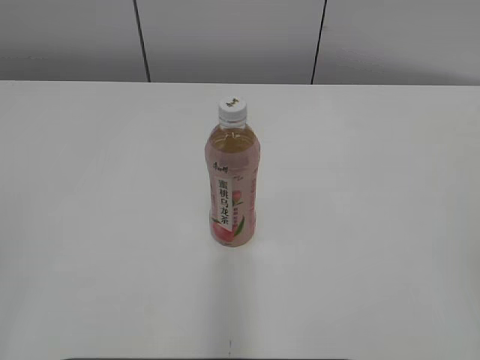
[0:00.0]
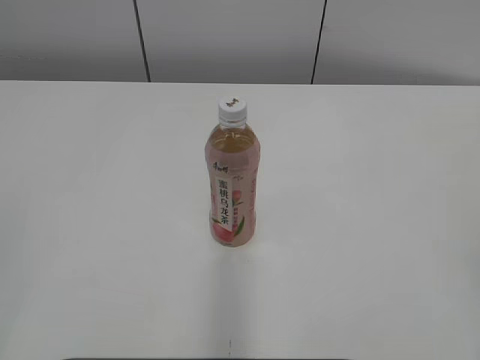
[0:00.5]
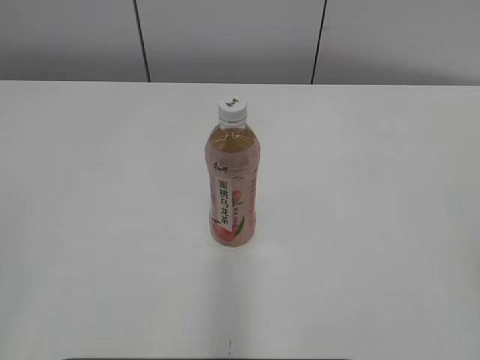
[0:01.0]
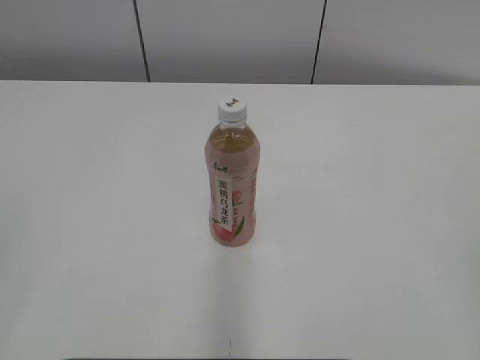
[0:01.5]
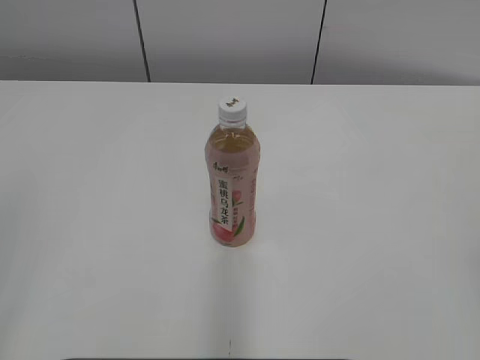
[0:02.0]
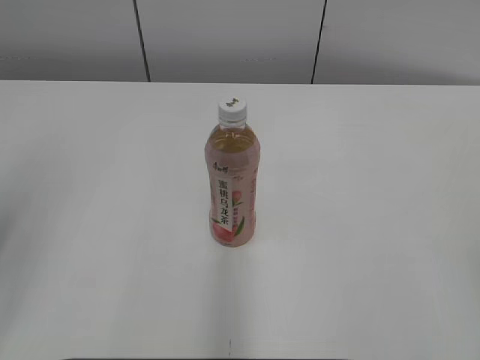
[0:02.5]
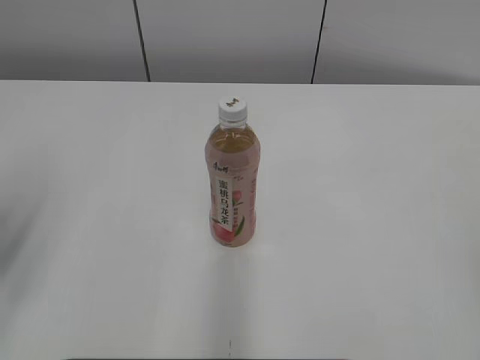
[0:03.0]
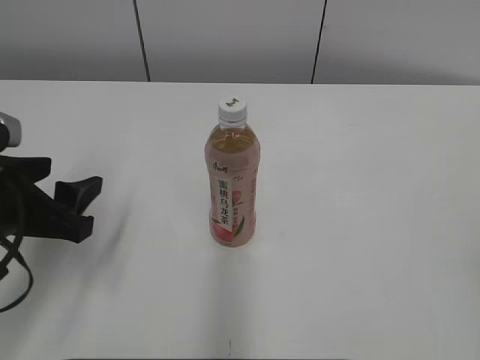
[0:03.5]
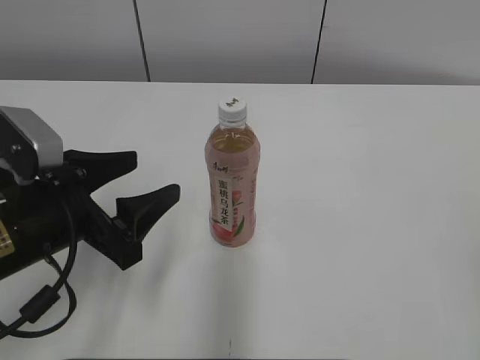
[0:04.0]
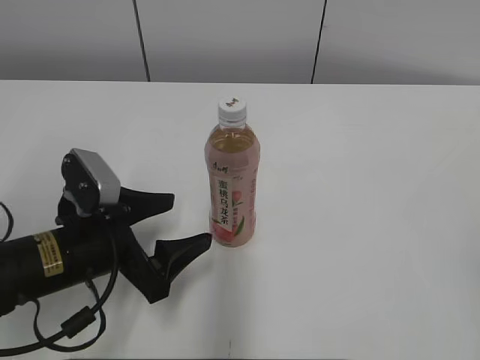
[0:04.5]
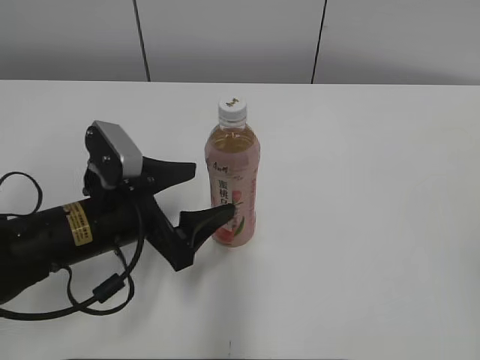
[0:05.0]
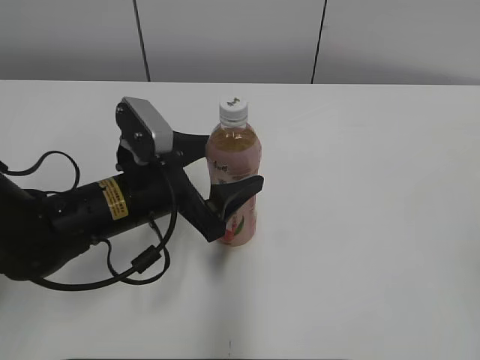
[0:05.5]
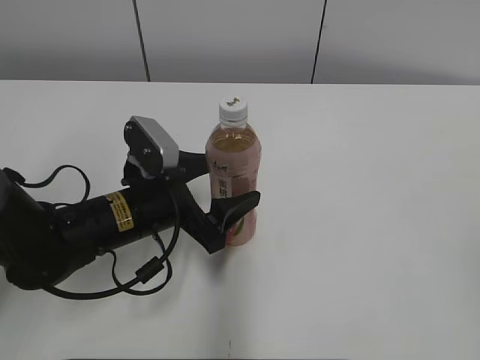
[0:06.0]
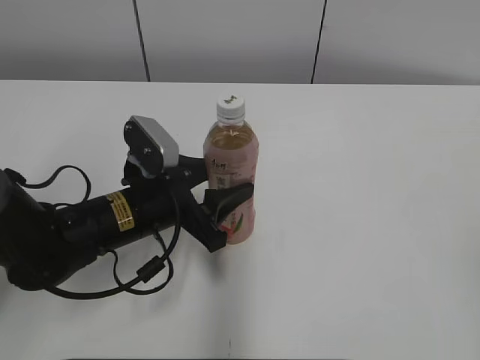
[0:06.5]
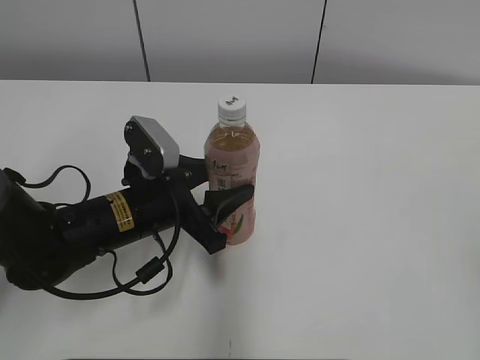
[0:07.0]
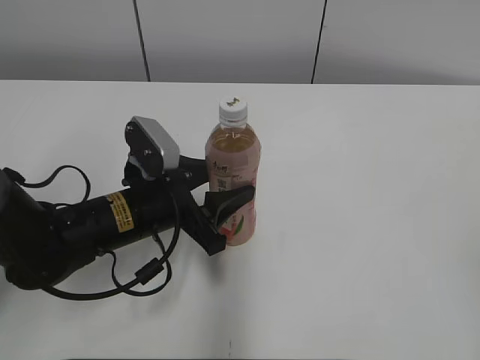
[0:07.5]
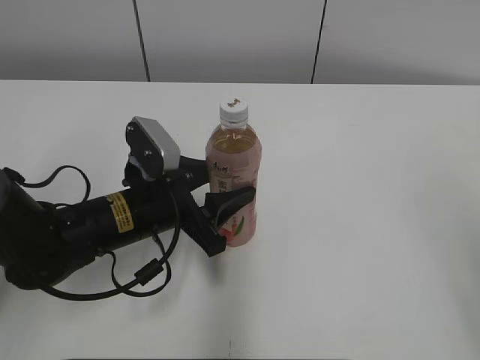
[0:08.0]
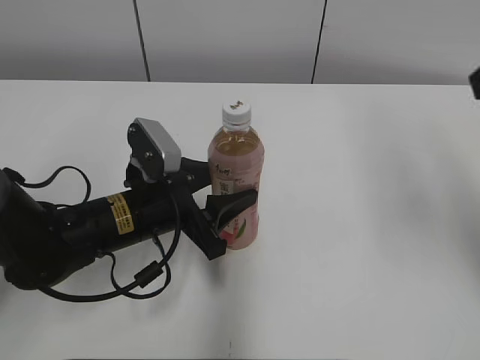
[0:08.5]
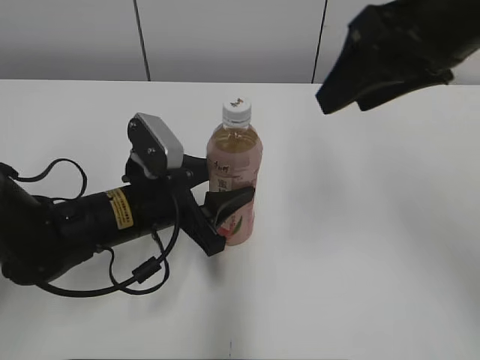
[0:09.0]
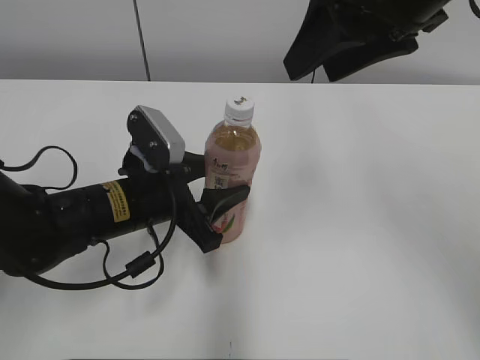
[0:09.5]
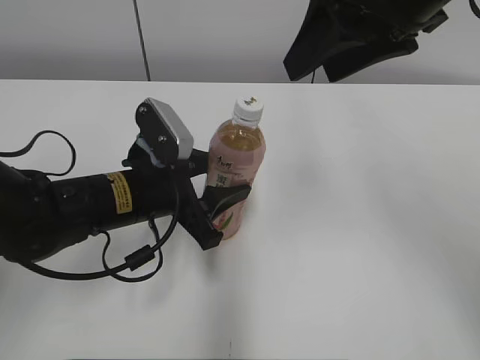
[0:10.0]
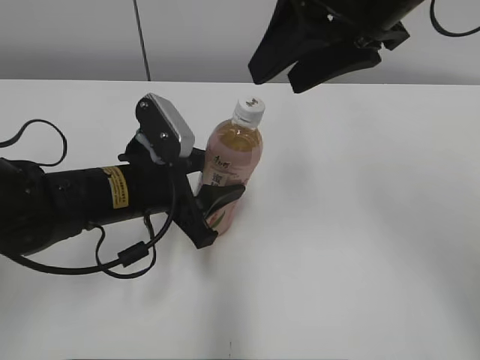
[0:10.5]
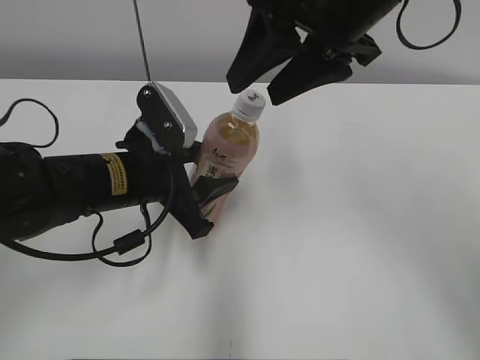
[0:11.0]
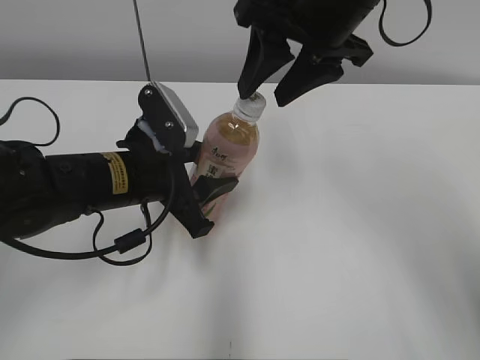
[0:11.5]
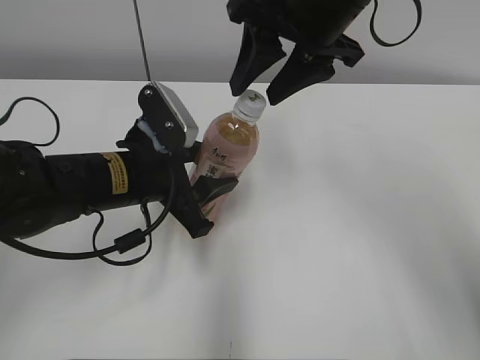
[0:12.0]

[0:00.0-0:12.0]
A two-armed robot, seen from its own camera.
Step, 0:00.0 to 0:07.5: Grab the Peach Oolong Tea with the left hand.
0:02.0 to 0:04.0: The left gripper travels forward, downward and to the right by approximately 25 cm, and opens its fingers.
0:04.0 to 0:06.0: The left gripper travels to the right, forward and downward by approximately 10 cm.
0:06.0 to 0:08.0: The right gripper heads forward, covering some 5 cm. Meanwhile the left gripper closes its fingers.
0:08.0 to 0:10.0: The right gripper is displaced forward and to the left by approximately 30 cm.
0:10.0 to 0:12.0: The right gripper goes approximately 5 cm forward.

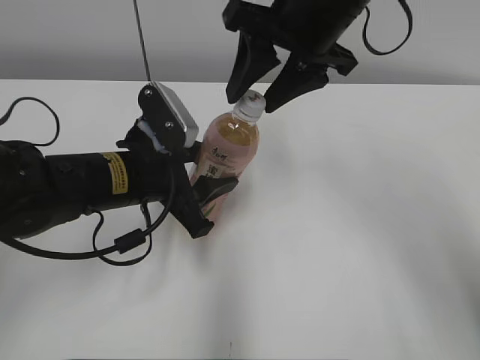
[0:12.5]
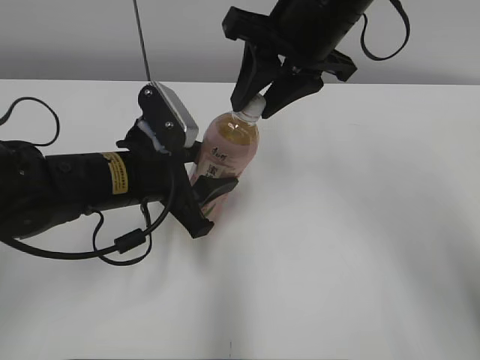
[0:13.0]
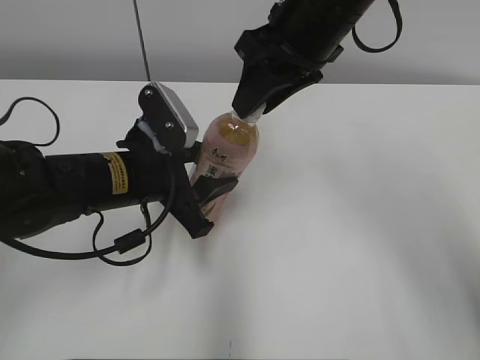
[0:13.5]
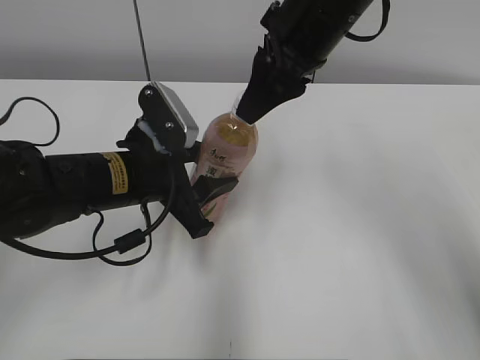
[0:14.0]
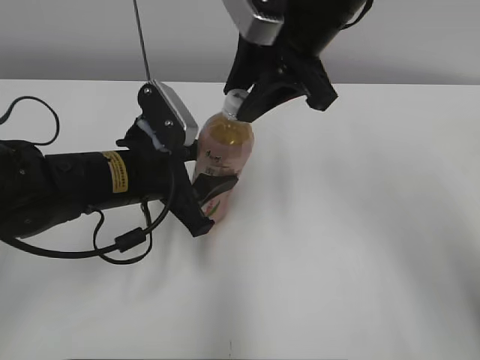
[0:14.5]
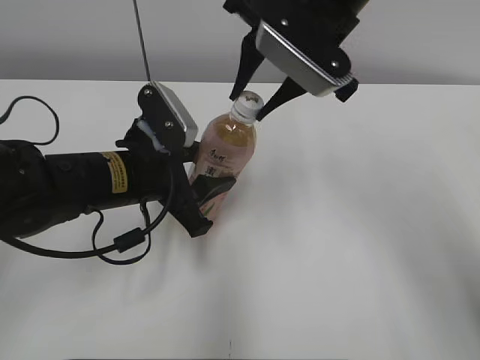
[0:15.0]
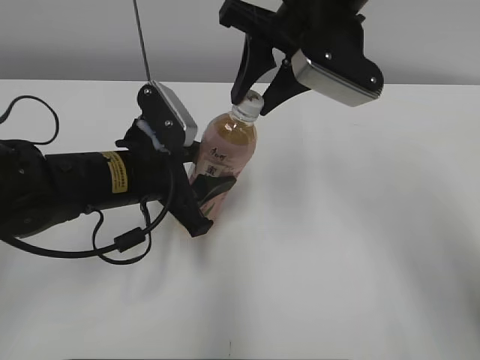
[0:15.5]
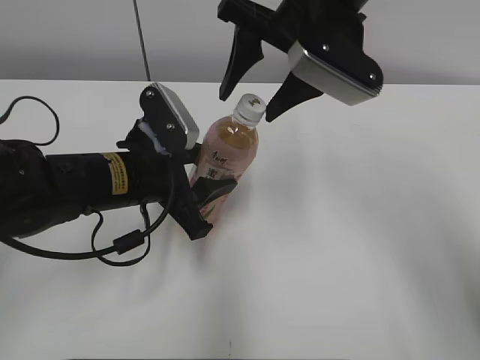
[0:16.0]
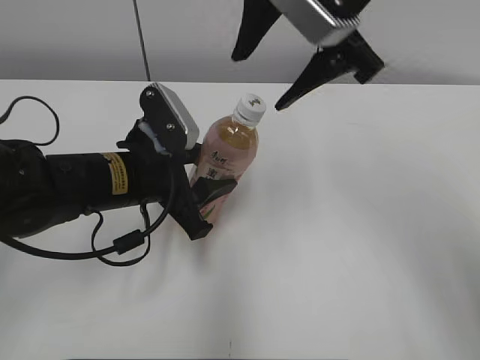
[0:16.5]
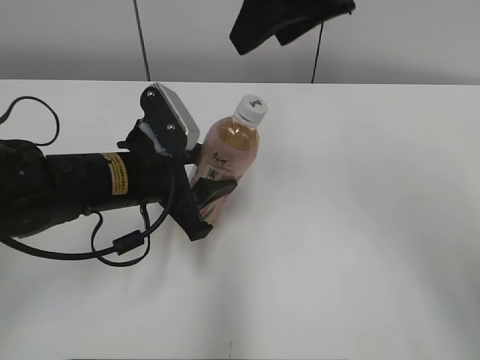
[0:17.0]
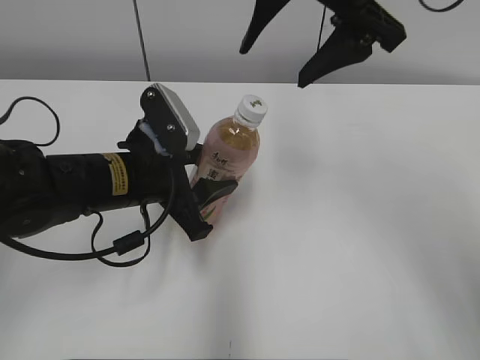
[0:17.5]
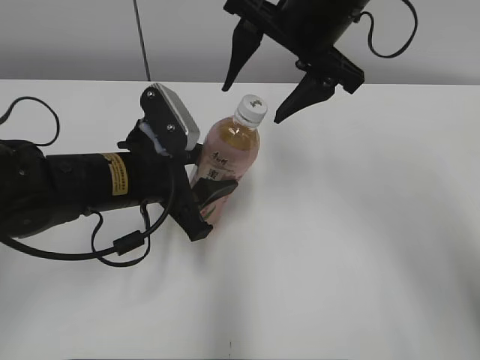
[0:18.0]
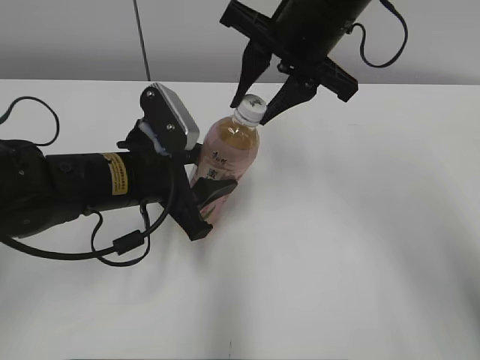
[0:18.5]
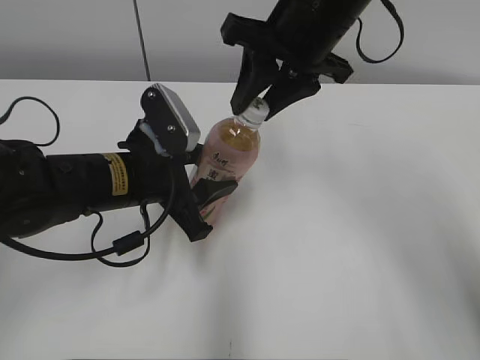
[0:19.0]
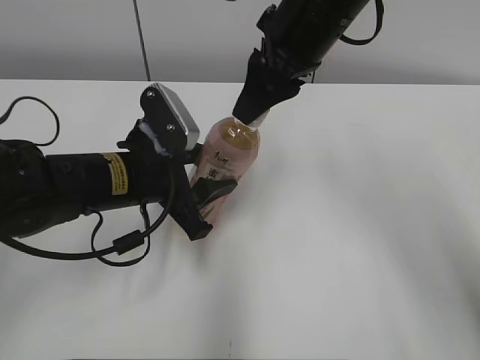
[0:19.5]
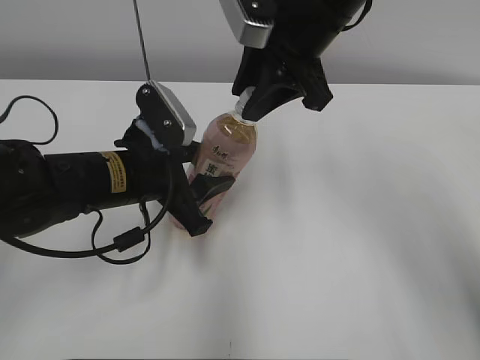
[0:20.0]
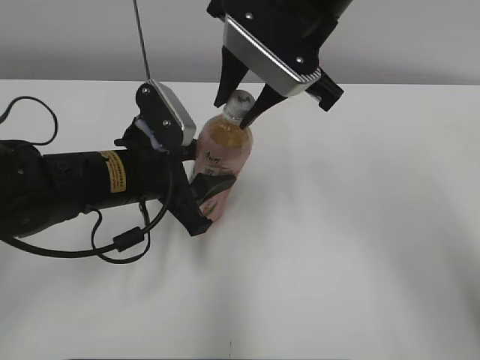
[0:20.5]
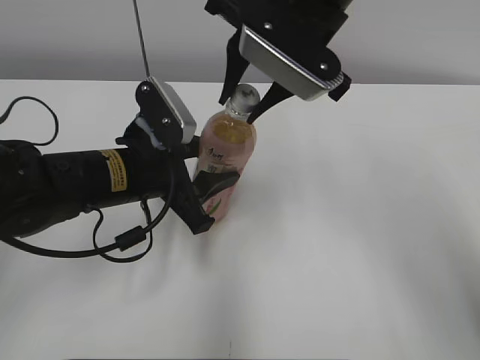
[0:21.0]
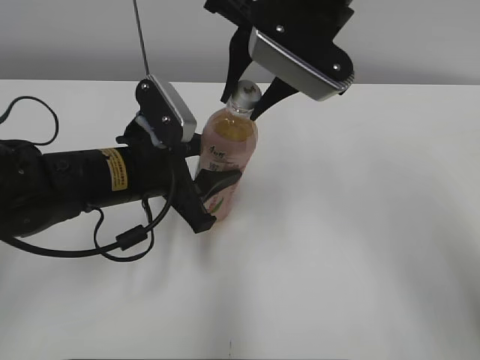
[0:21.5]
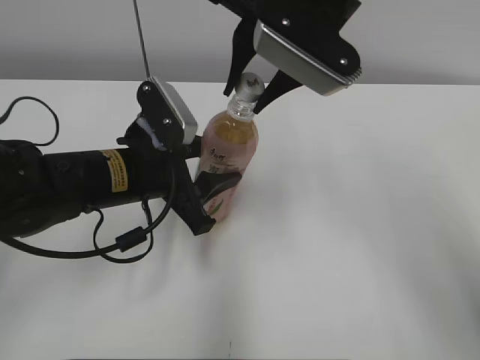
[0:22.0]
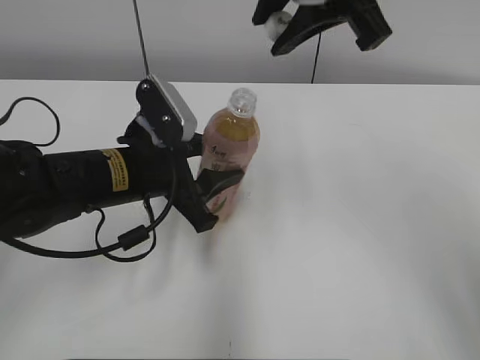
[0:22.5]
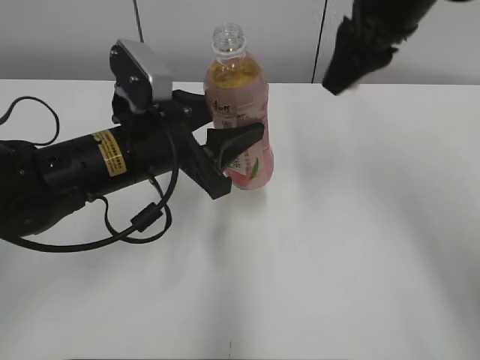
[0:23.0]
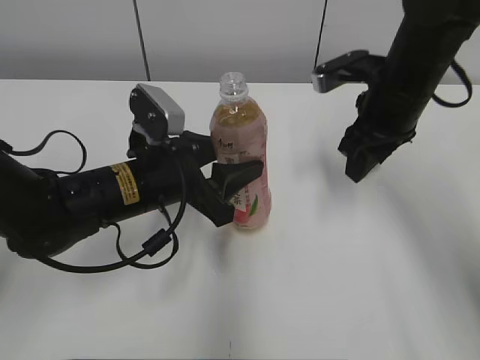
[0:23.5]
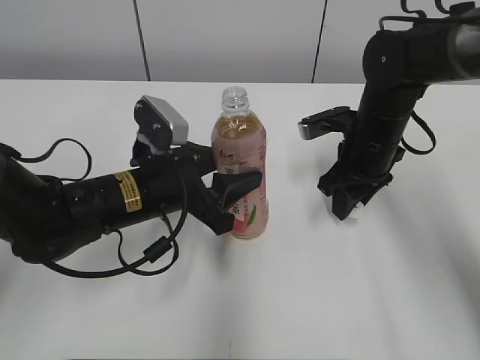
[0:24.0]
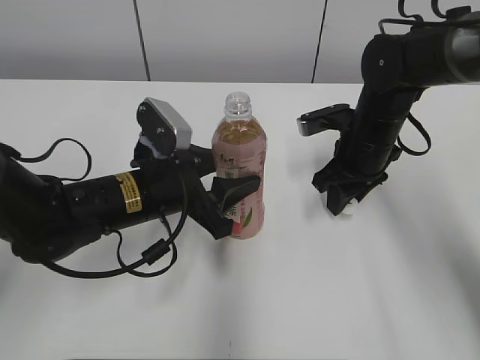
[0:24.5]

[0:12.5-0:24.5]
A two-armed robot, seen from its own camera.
0:12.5 to 0:14.5: The right gripper closes.
0:14.5 to 0:16.5: The right gripper opens.
0:16.5 to 0:18.5: The right gripper changes place by some 5 cm, and closes up.
0:20.5 to 0:22.5: The right gripper moves upward, some 5 cm.
0:22.5 to 0:24.5: The right gripper shifts some 25 cm downward.

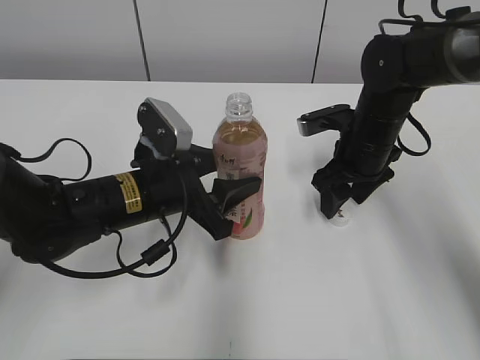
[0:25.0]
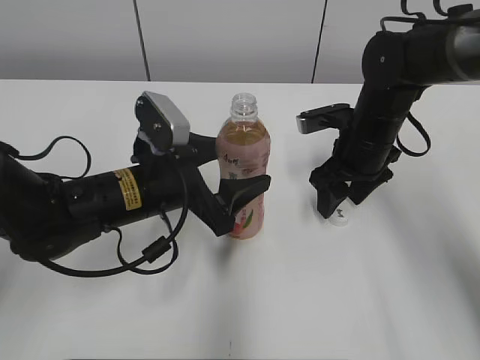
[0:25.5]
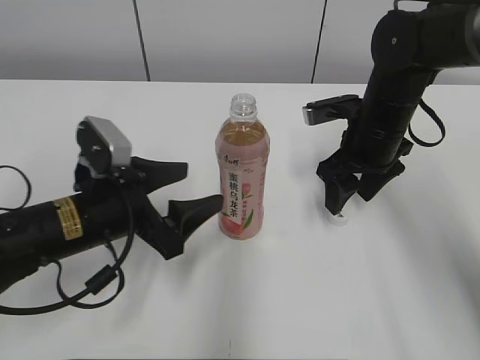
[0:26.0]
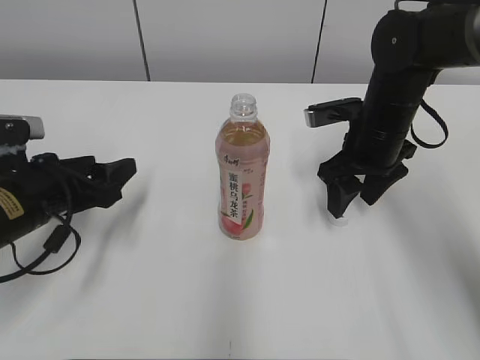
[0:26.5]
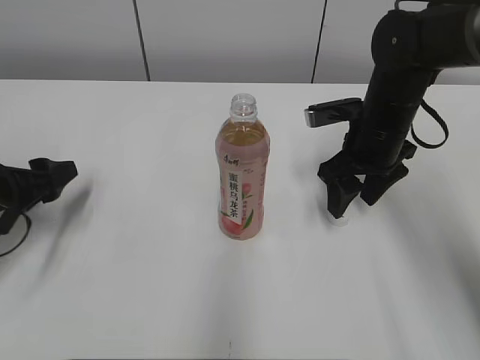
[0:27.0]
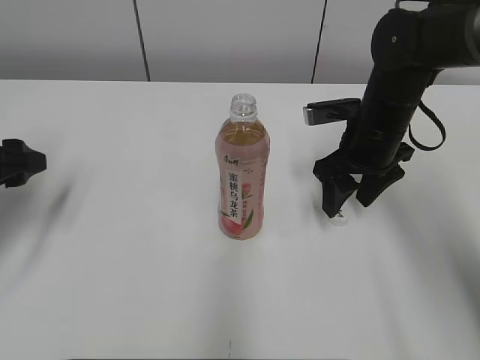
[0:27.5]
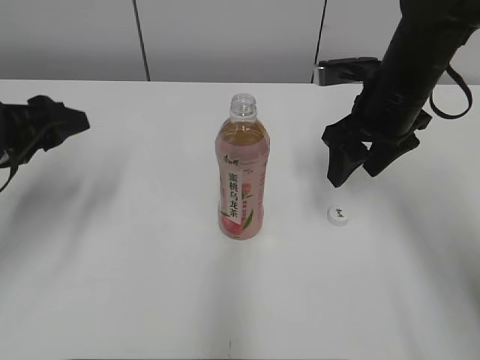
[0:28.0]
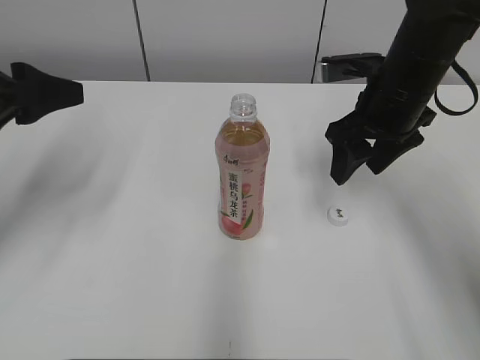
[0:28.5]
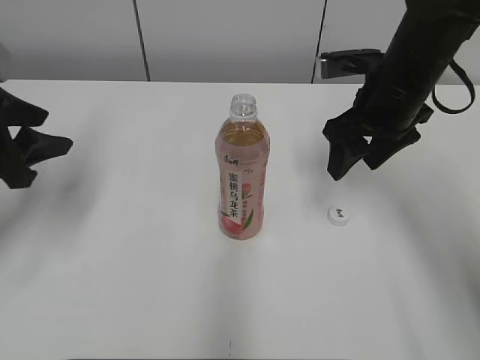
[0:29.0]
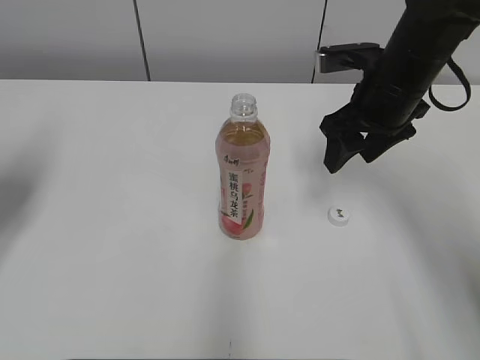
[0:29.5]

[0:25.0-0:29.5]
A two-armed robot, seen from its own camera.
0:25.0 to 0:27.0: The left gripper goes roughly 20 cm to the left.
0:27.0 to 0:29.5: The right gripper moves upward, roughly 5 cm, while the left gripper goes approximately 10 cm upward.
